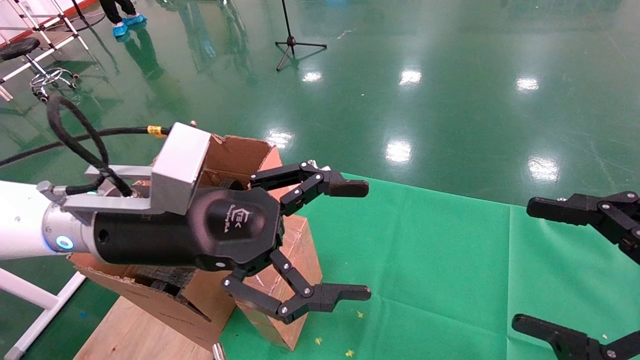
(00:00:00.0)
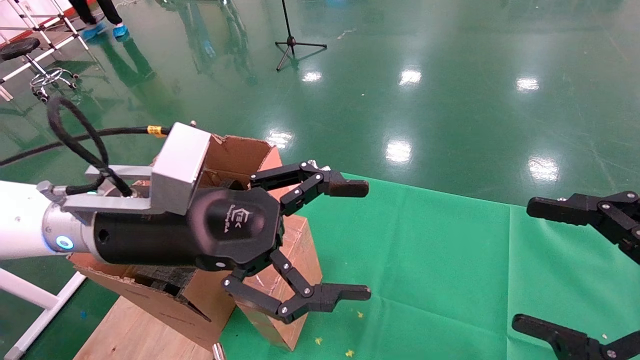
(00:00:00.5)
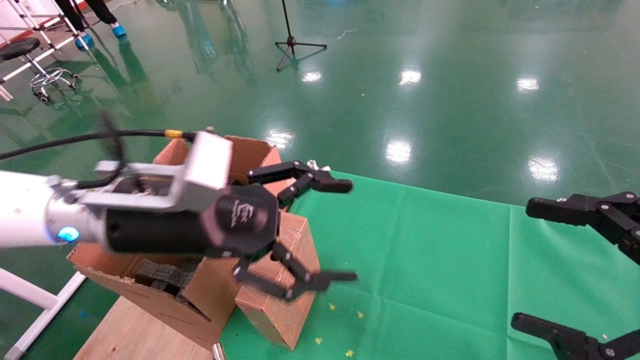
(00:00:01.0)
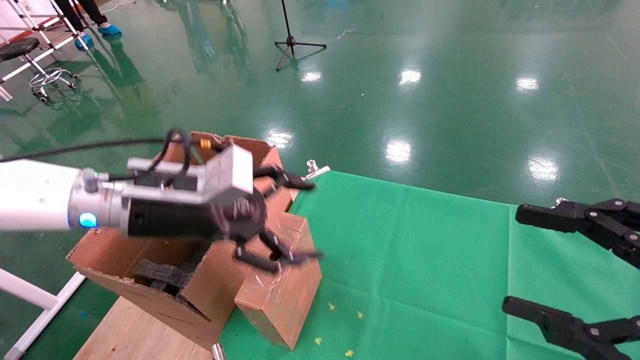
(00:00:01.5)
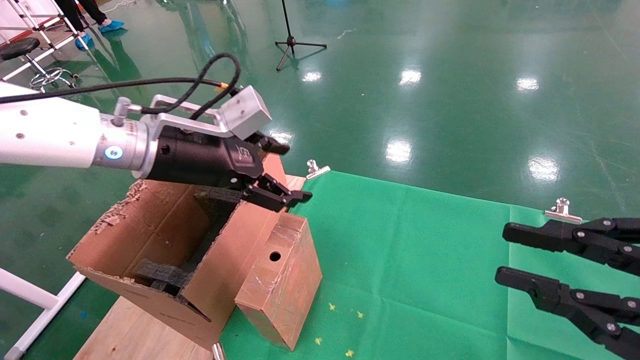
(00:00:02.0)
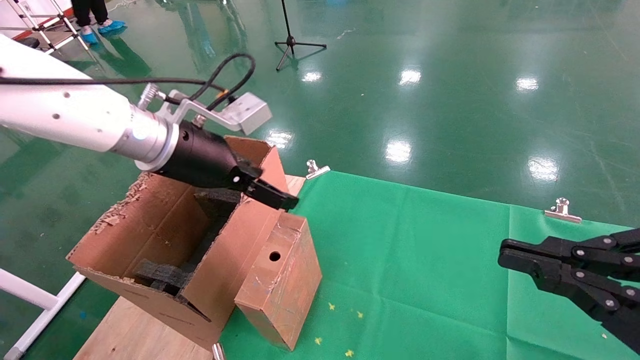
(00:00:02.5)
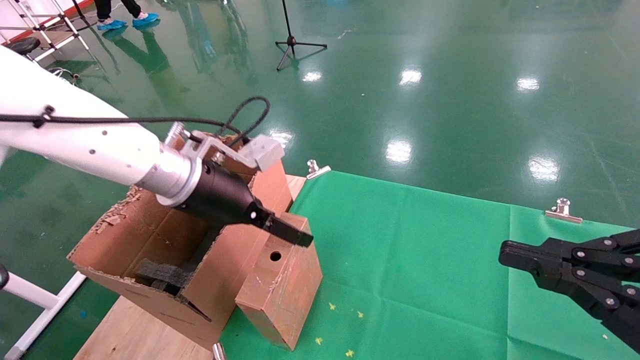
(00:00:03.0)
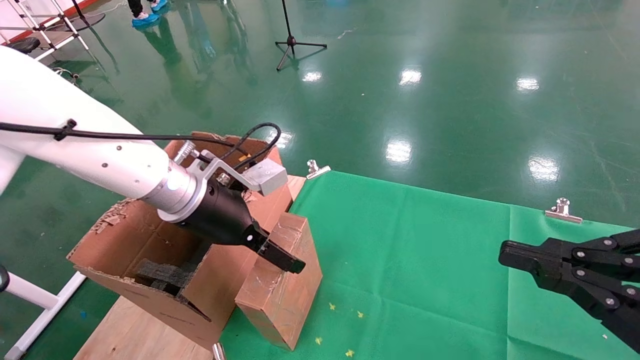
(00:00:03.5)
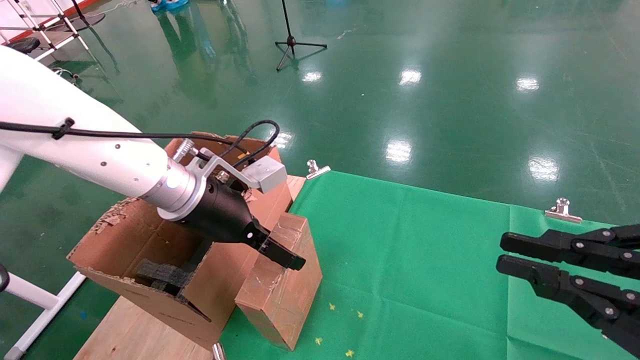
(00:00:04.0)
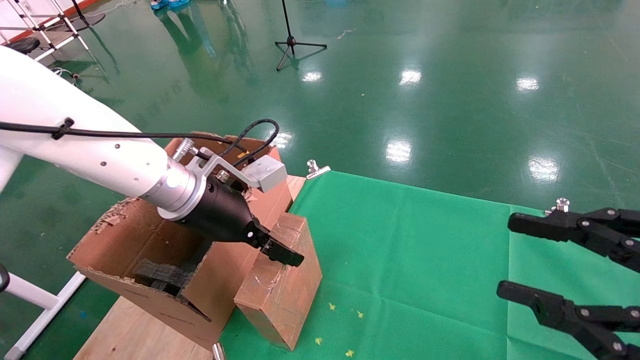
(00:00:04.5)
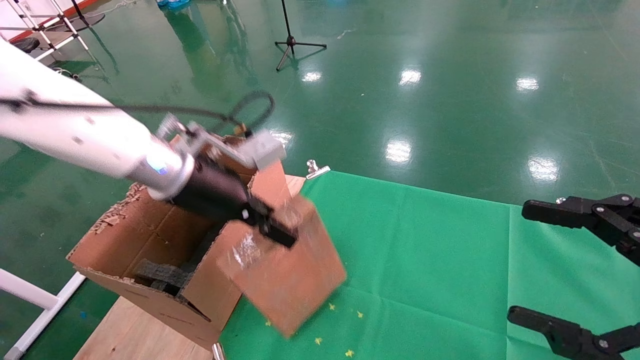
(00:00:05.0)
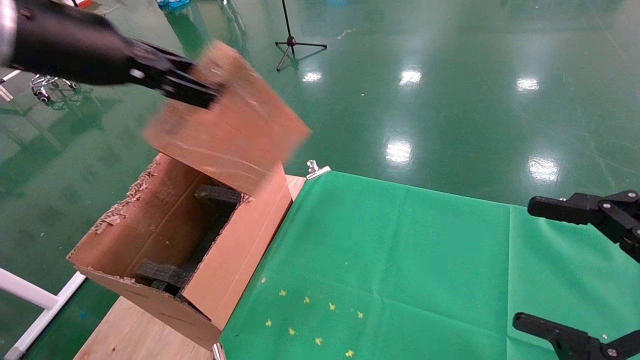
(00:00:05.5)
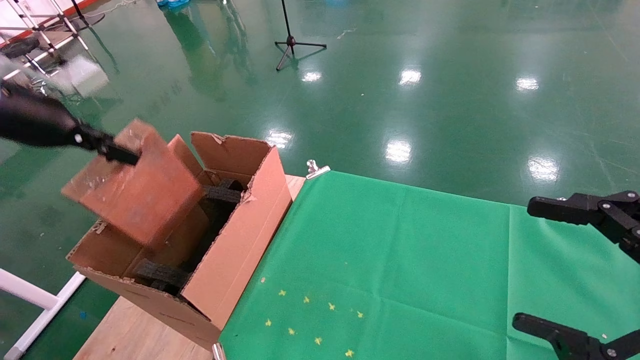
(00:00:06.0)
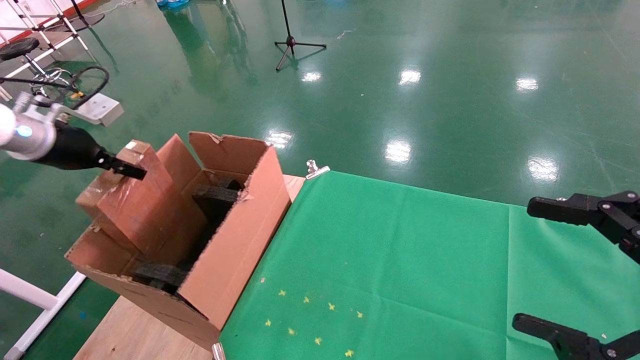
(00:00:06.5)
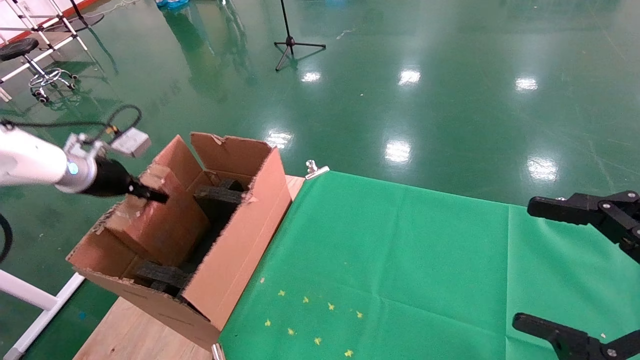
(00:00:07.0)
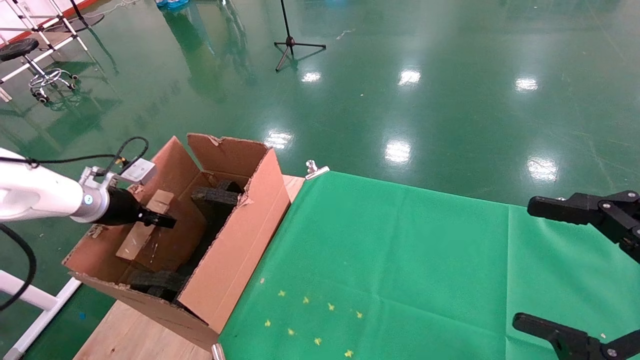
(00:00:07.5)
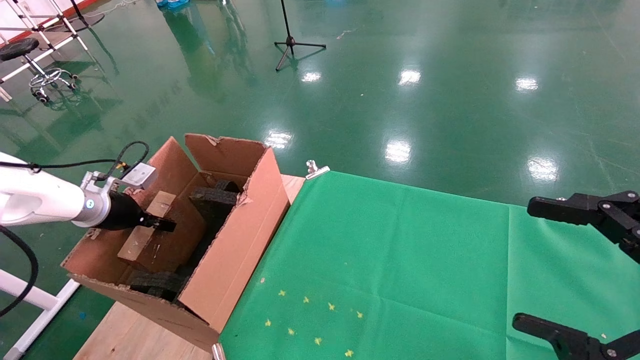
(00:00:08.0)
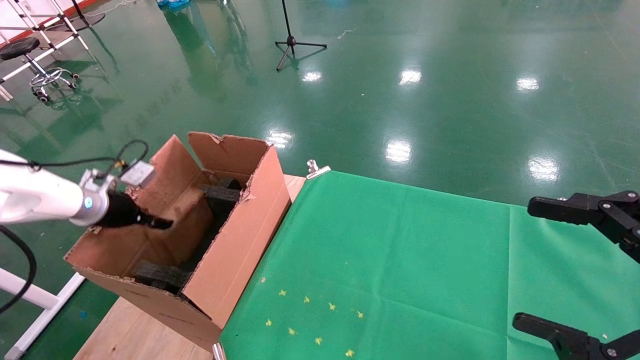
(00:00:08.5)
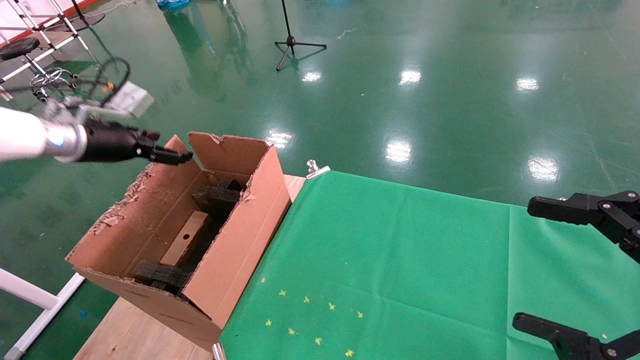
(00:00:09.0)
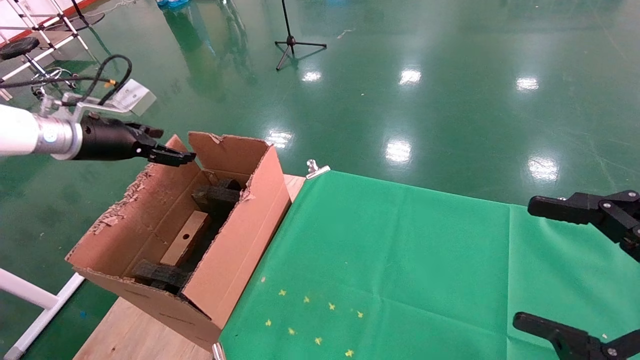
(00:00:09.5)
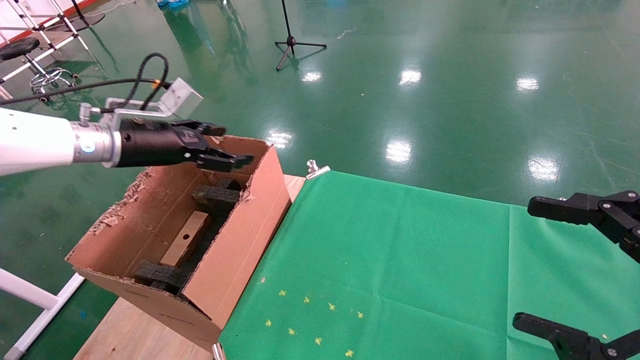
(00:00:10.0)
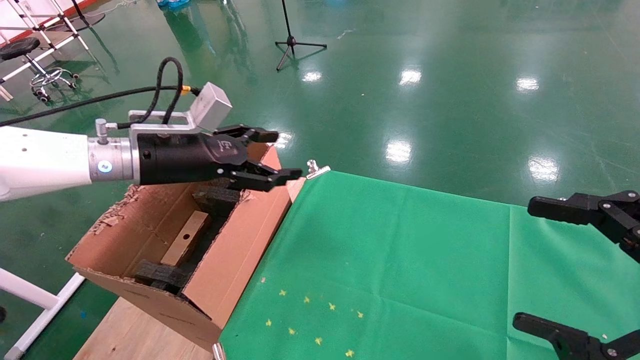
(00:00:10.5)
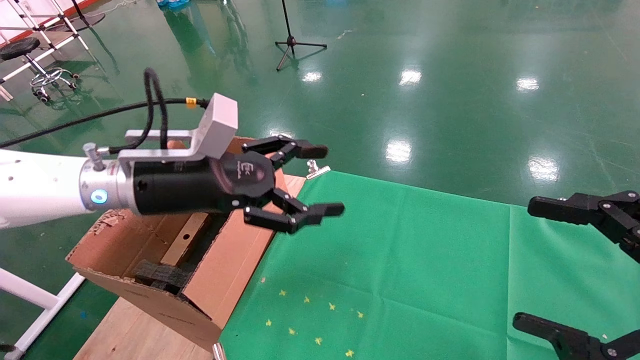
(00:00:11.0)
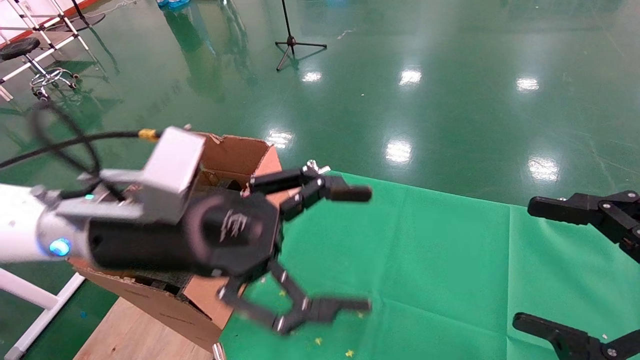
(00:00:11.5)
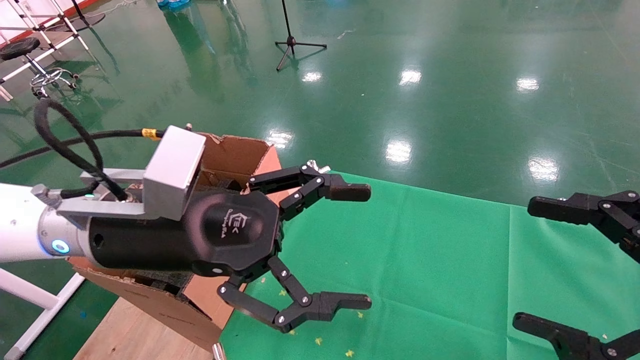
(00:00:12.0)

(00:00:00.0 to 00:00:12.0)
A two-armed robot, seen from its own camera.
Task of the whole recording: using a robotic arm to pick up a cardboard box and palace it the carton.
Step, 00:00:01.0 - 00:00:04.5: Pick up the mouse and the power cord paper box.
Step, 00:00:05.0 - 00:00:08.5: Place the mouse and the power cord paper box into the container.
00:00:00.0 - 00:00:02.0: The right gripper closes. Meanwhile the left gripper goes roughly 10 cm forward.
00:00:02.0 - 00:00:04.0: The left gripper is displaced downward by about 5 cm.
00:00:04.0 - 00:00:06.0: The right gripper opens. Meanwhile the left gripper shifts roughly 25 cm to the left and upward, and closes up.
00:00:06.0 - 00:00:08.0: The left gripper moves downward and forward, about 25 cm.
00:00:08.0 - 00:00:10.0: The left gripper goes about 20 cm upward and to the right, and opens its fingers.
00:00:10.0 - 00:00:12.0: The left gripper moves to the right and backward, about 25 cm.

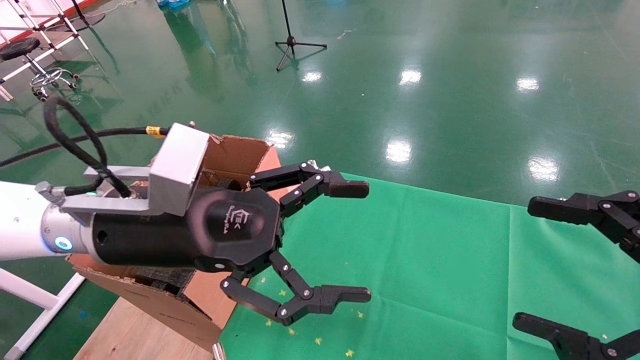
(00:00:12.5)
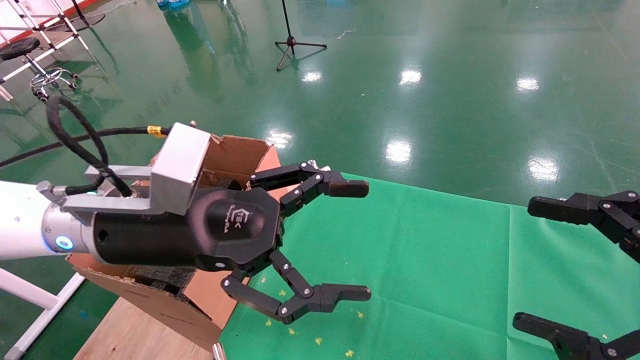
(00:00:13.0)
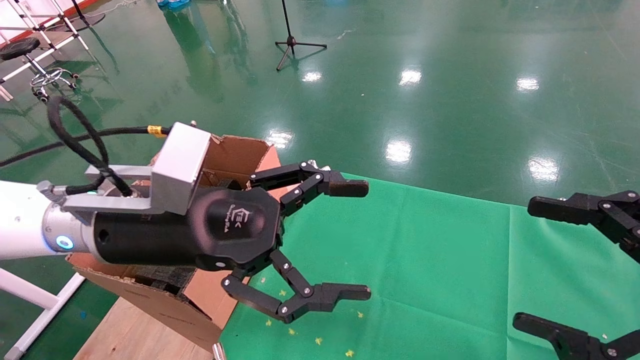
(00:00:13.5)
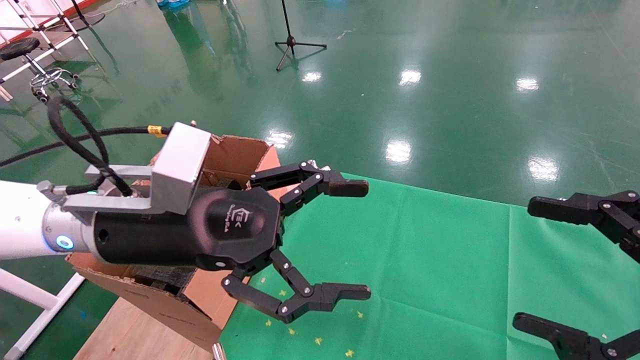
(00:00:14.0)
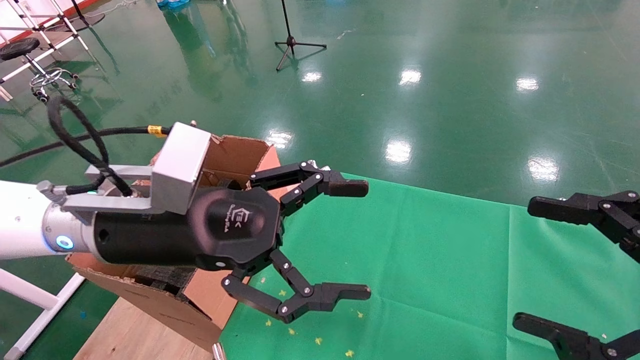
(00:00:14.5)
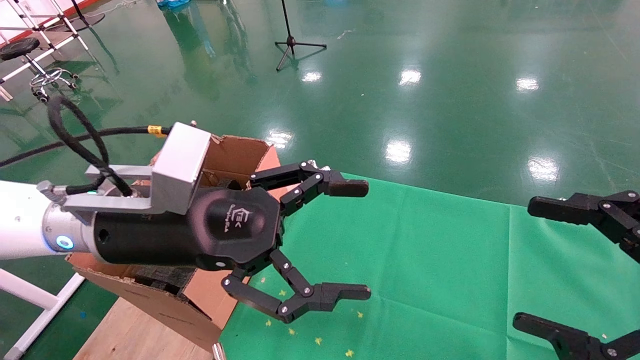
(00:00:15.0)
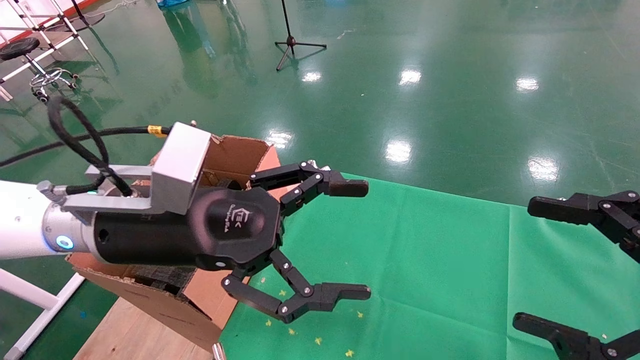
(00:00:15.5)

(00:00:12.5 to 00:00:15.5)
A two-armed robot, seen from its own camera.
Task of the whole recording: using a robotic arm to pick up a cardboard box and palace it the carton.
00:00:12.5 - 00:00:15.5: Neither gripper changes place.
